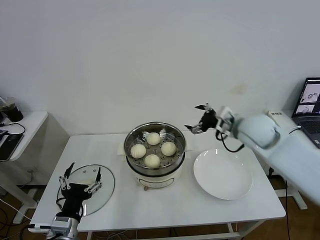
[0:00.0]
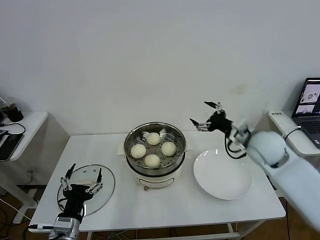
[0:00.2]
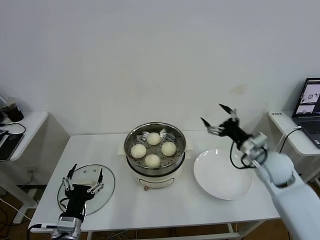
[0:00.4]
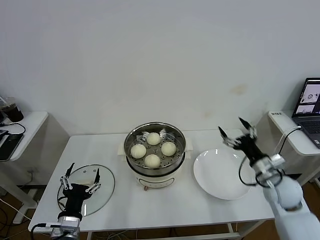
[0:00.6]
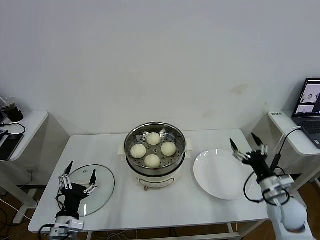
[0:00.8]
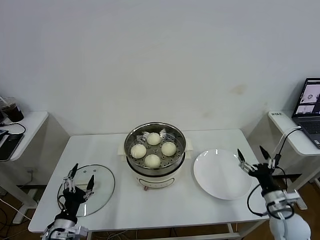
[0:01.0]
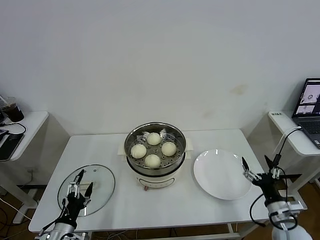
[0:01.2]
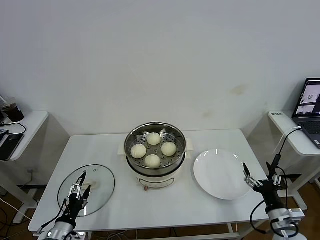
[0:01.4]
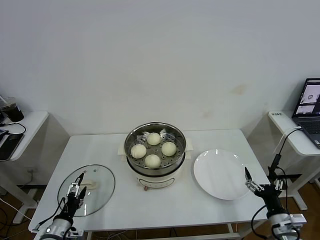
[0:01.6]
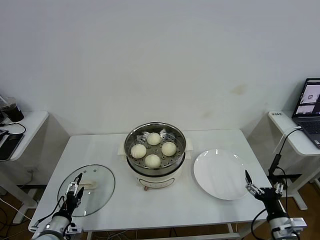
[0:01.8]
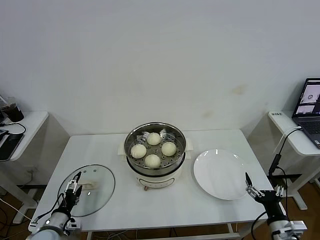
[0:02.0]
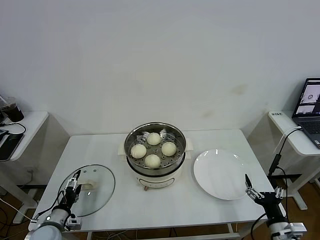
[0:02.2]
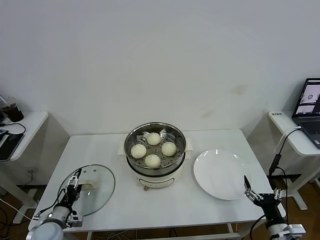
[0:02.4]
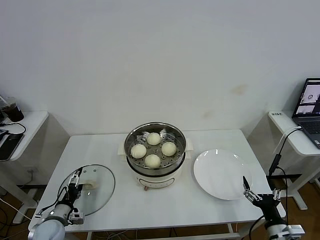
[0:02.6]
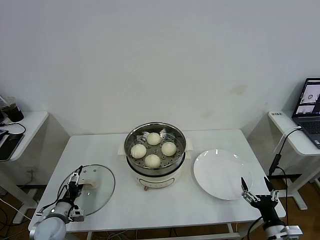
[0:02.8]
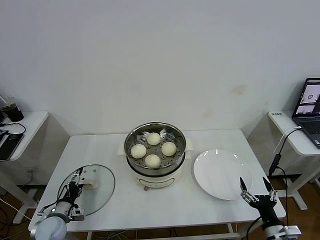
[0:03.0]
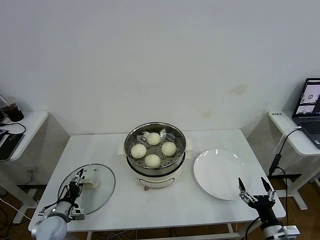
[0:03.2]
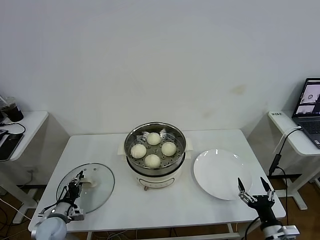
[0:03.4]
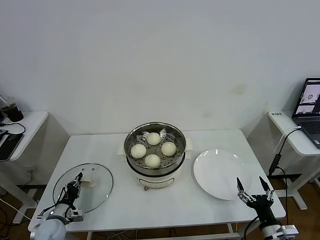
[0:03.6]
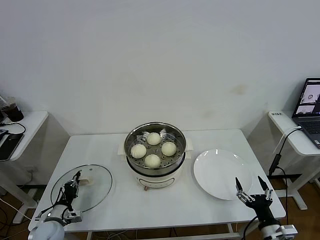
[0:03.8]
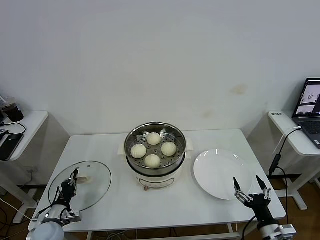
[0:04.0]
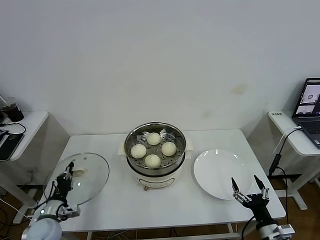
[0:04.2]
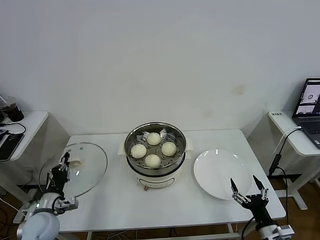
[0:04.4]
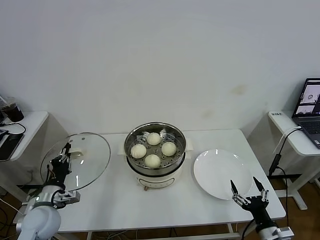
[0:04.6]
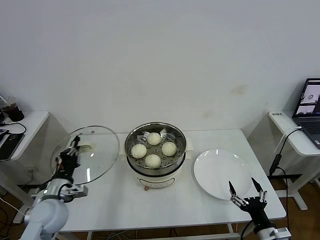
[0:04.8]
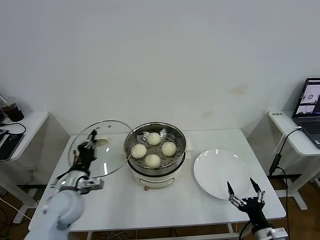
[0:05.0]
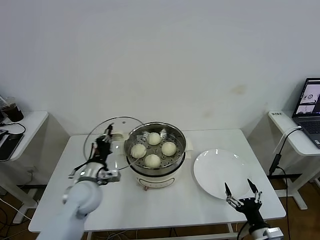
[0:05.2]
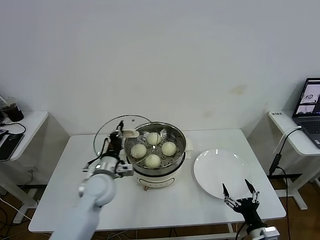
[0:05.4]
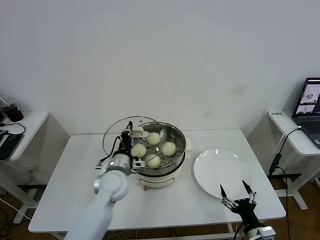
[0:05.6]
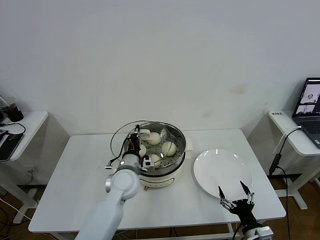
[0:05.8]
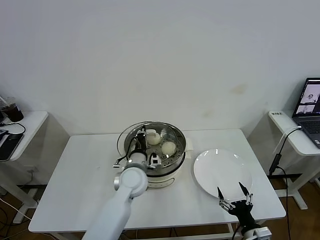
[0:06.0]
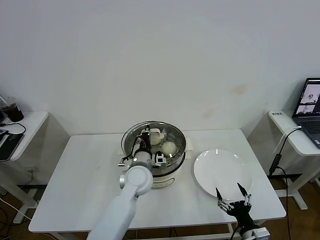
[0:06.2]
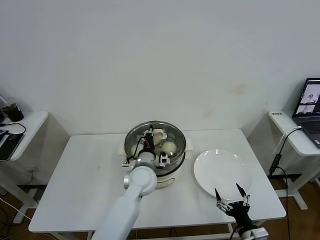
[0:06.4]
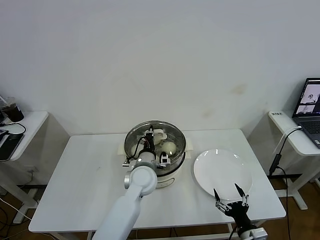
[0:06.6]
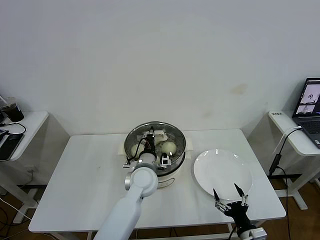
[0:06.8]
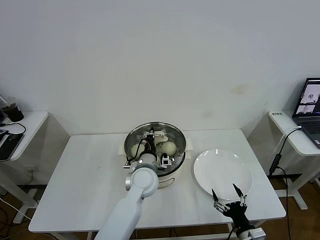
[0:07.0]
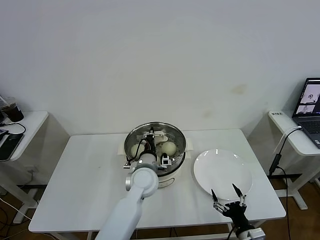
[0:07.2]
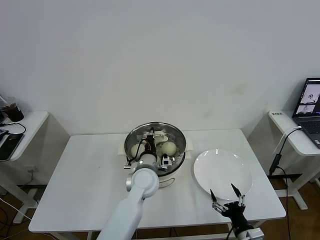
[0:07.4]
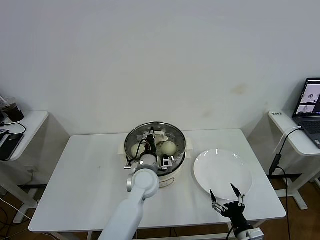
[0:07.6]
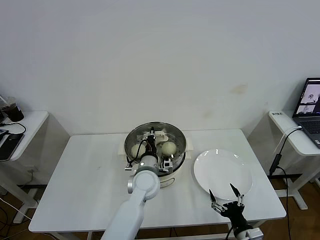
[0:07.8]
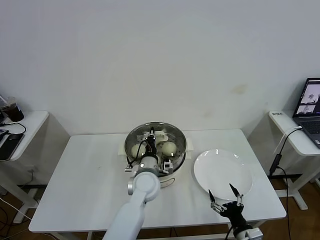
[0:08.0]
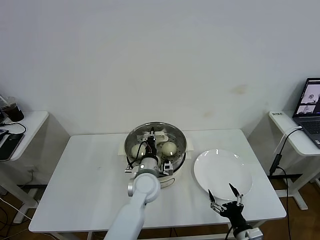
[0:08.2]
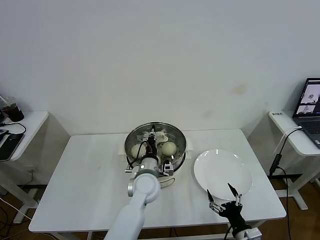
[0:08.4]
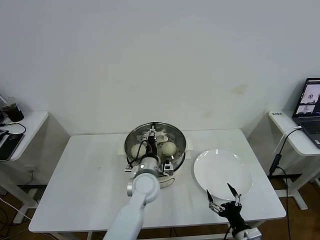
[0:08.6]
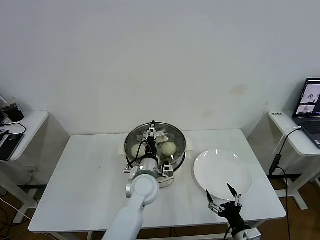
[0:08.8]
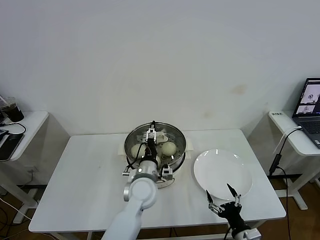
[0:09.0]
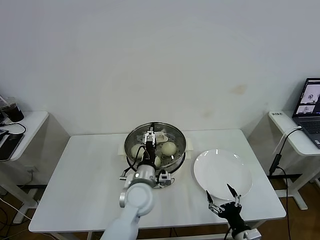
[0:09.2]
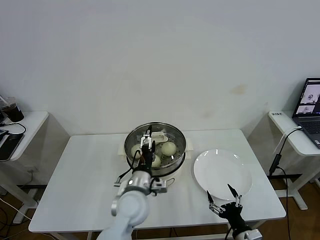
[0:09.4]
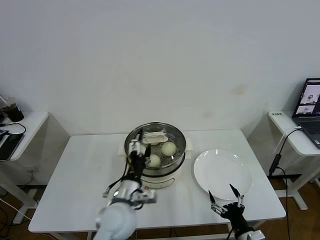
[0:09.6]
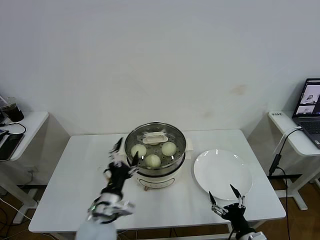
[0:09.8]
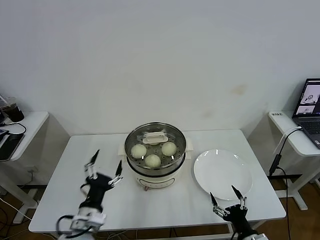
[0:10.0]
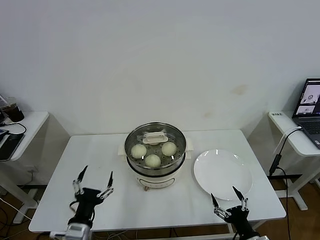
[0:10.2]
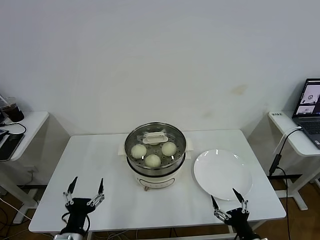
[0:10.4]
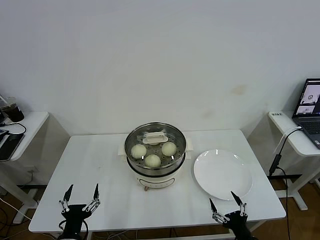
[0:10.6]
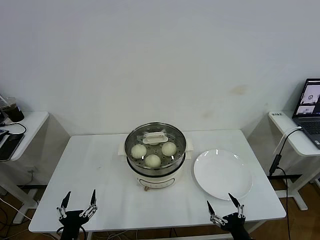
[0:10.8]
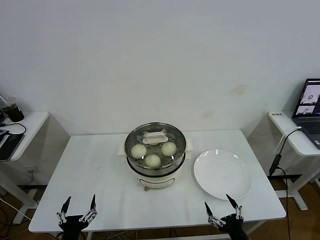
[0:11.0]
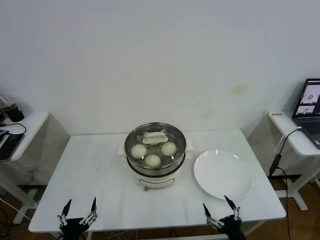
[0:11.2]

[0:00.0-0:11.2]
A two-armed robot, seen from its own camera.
Task of the whole recording: take steamed baozi put them in steamer then cover it.
Step, 0:00.0 to 0:03.6: Grasp the pot lid with left gripper.
Step, 0:03.8 to 0:08.8: Place the pot lid on the steamer with left gripper.
0:00.0 to 0:01.6: The left gripper travels downward and to the left by approximately 15 cm; the right gripper travels backward, downward and to the right by some 35 cm.
0:01.6 to 0:03.2: The left gripper travels forward by some 10 cm, and closes.
0:03.2 to 0:04.8: The left gripper moves upward and to the right, approximately 15 cm, and closes its fingers.
0:04.8 to 0:06.4: The left gripper goes approximately 30 cm to the right and forward.
0:06.4 to 0:08.0: There are only small adjustments of the grippers.
0:08.0 to 0:09.6: The left gripper moves backward and to the left, some 10 cm, and opens its fingers.
0:09.6 to 0:11.2: The left gripper moves backward, to the left and downward, roughly 25 cm.

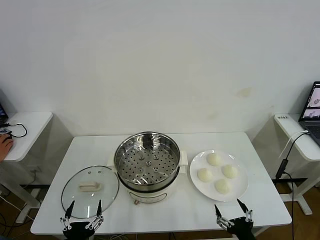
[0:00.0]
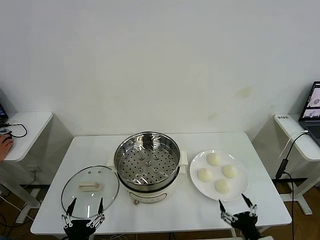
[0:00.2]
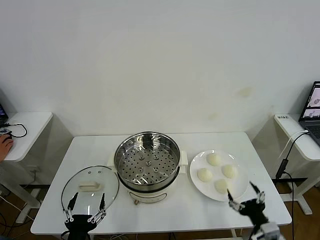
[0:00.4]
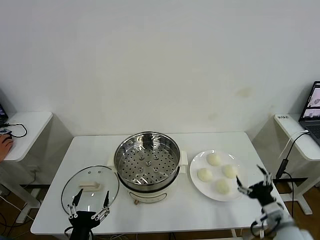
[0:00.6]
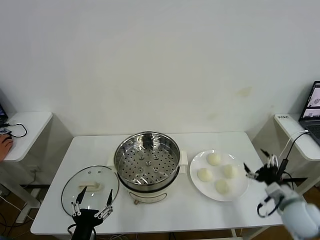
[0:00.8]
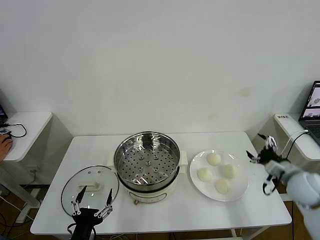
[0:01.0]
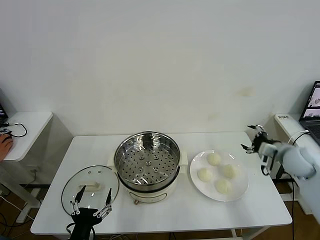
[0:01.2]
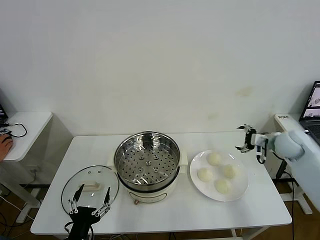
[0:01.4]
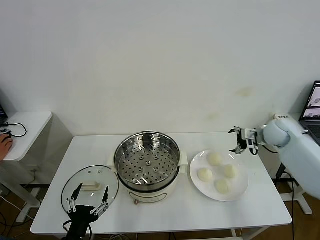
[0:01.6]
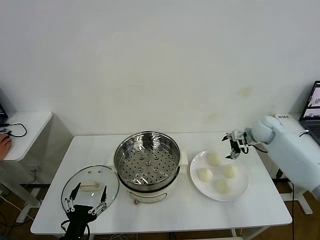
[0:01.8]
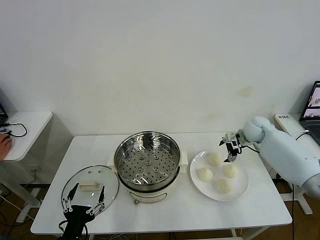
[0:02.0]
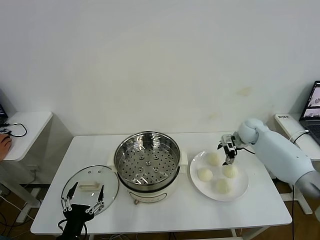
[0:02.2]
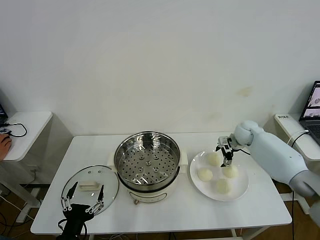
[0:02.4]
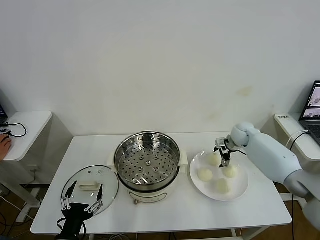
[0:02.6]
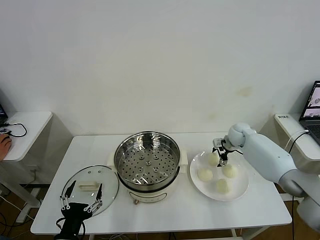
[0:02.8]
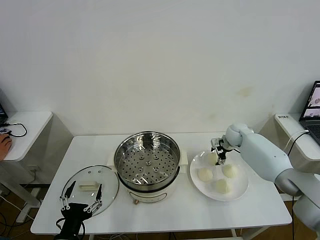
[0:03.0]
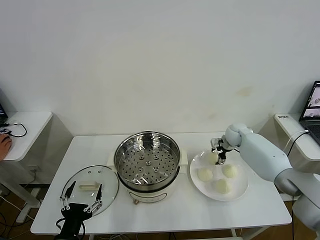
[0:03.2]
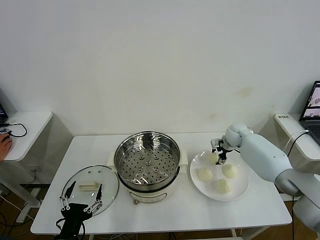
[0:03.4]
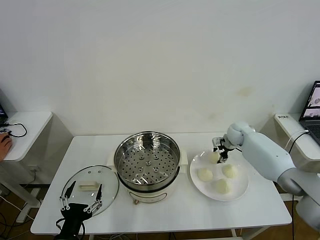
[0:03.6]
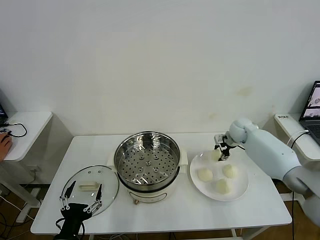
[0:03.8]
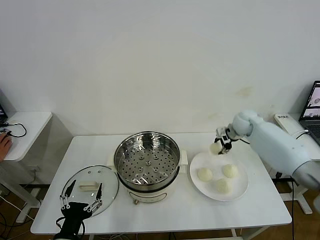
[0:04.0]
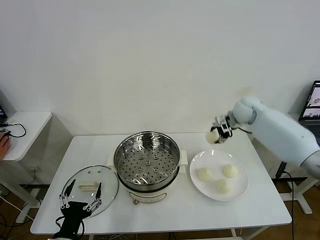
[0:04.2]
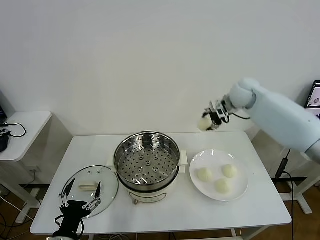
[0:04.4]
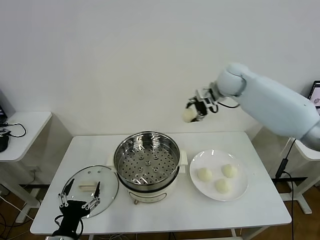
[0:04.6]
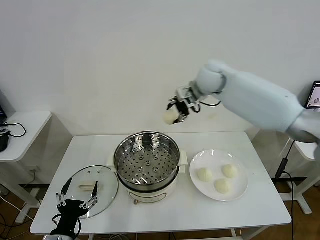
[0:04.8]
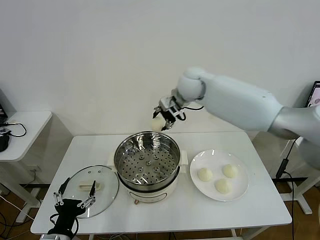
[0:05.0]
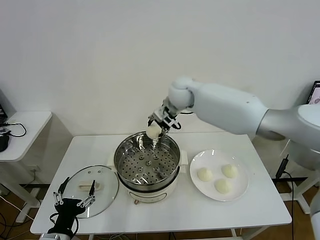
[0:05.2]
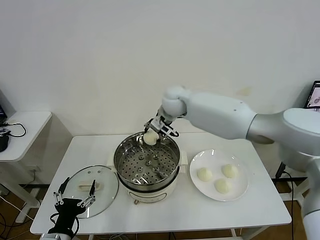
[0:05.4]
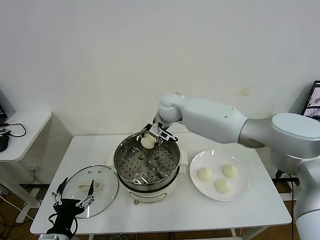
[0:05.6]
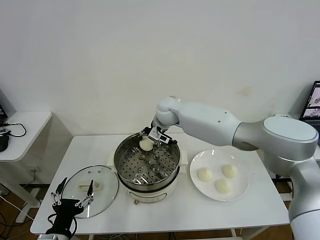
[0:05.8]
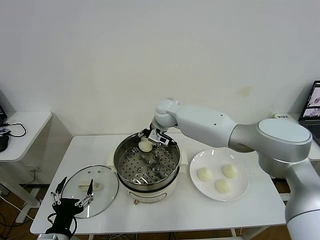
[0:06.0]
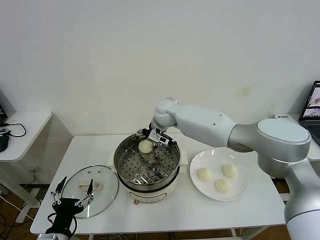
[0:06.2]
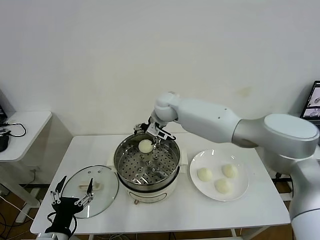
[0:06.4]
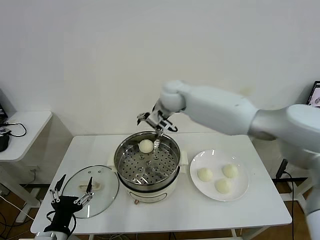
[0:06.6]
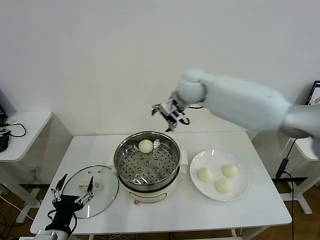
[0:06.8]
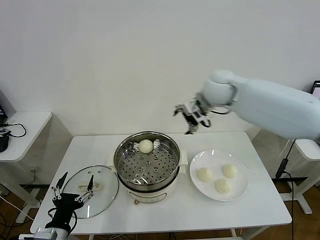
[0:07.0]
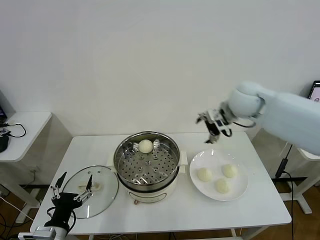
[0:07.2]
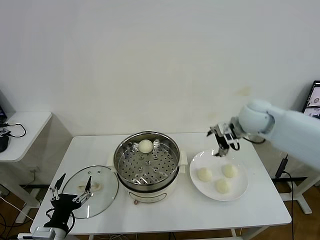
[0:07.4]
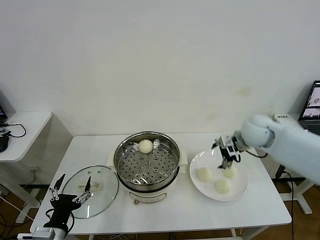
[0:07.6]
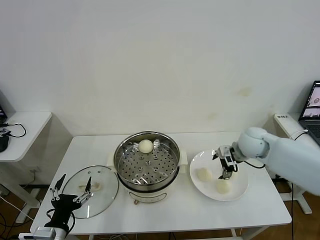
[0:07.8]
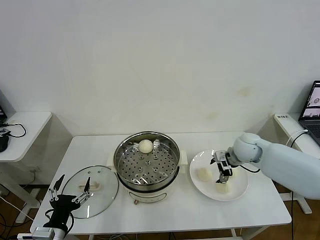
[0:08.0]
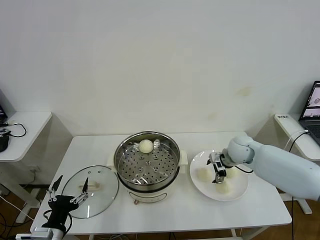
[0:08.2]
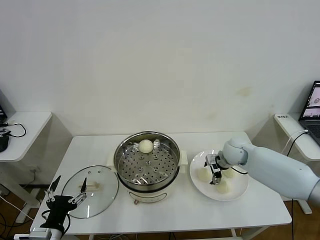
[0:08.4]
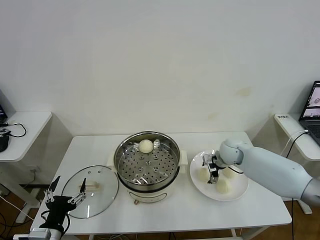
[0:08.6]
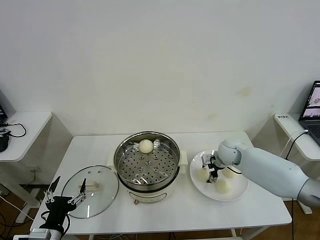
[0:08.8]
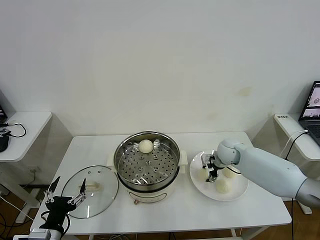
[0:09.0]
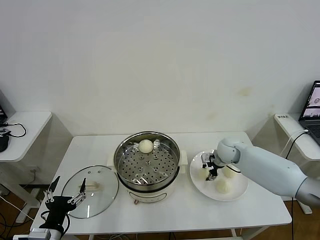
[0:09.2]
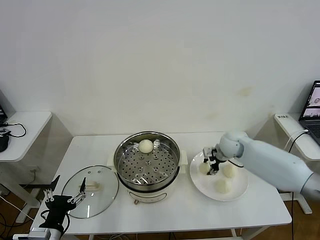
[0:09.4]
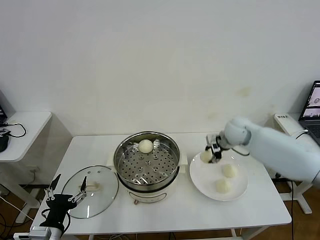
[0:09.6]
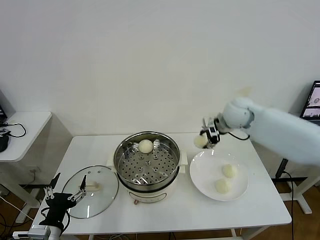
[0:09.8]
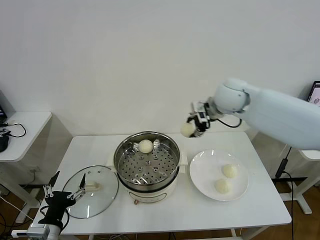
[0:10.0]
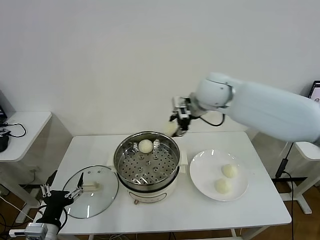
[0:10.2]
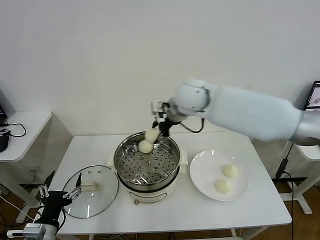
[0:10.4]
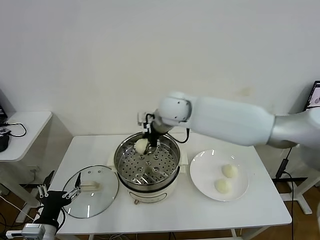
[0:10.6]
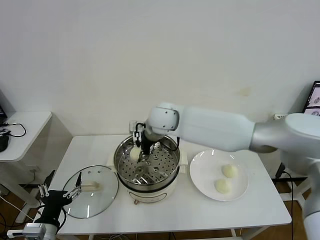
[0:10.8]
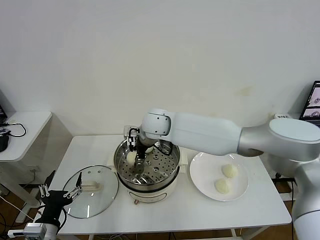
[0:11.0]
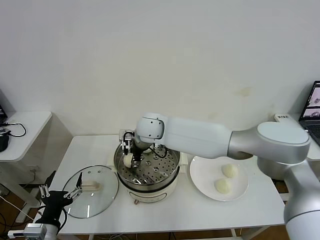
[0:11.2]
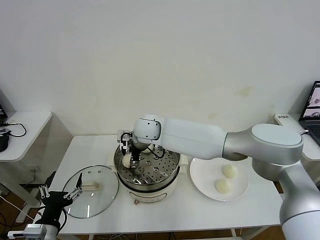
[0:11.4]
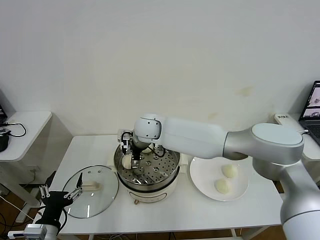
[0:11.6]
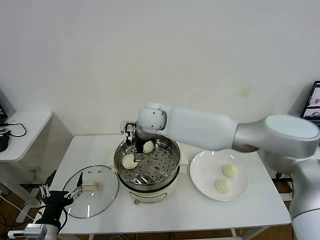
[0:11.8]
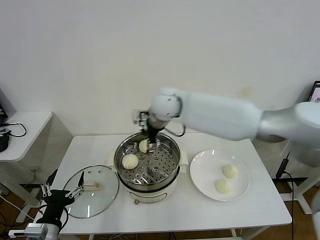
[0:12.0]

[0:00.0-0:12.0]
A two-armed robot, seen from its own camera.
Task of the whole recording: take steamed baozi put them in steamer then cover it.
Step, 0:00.0 to 0:03.2: Grasp the baozi in the plate with right gripper.
Step, 0:03.4 to 0:06.0: Place the baozi on the steamer with right gripper.
Step, 0:06.4 to 0:09.0: Grasp the baozi in the plate with right gripper.
Step, 0:09.2 to 0:11.6: Place the baozi on the steamer with right gripper.
0:01.6 to 0:03.0: The right gripper travels downward, to the left and forward by approximately 15 cm, and closes its fingers.
0:03.0 to 0:04.4: The right gripper heads upward, covering some 20 cm, and closes its fingers.
0:04.4 to 0:06.0: The right gripper goes approximately 25 cm to the left, and opens.
0:06.0 to 0:07.6: The right gripper travels to the right by approximately 30 cm, and opens its fingers.
0:07.6 to 0:09.0: The right gripper heads downward, covering about 15 cm, and closes.
0:09.0 to 0:10.4: The right gripper travels upward and to the left by about 30 cm.
0:10.4 to 0:12.0: The right gripper goes roughly 5 cm to the left, and opens up.
